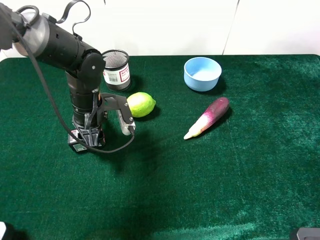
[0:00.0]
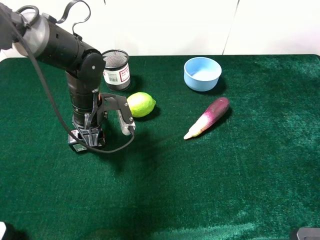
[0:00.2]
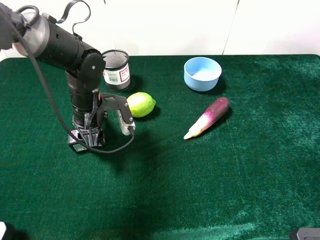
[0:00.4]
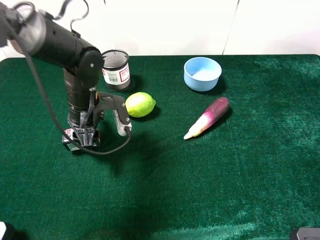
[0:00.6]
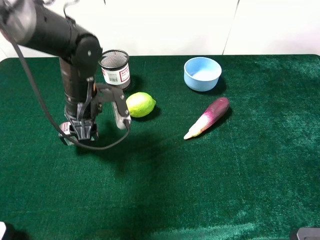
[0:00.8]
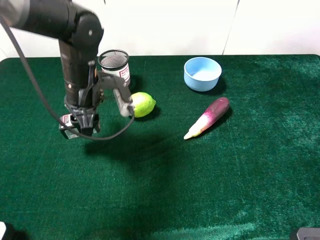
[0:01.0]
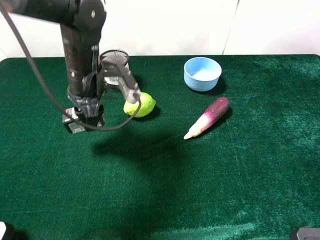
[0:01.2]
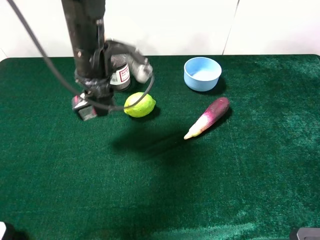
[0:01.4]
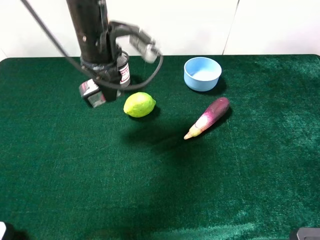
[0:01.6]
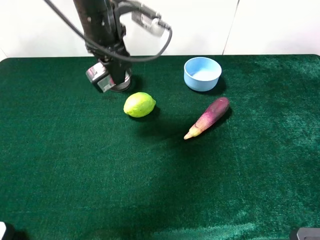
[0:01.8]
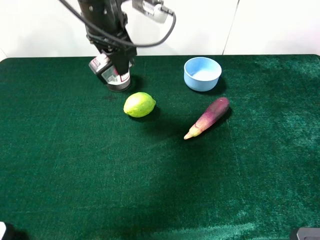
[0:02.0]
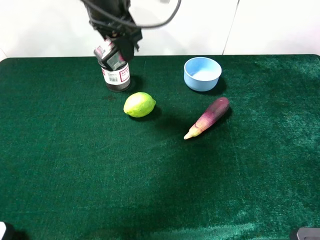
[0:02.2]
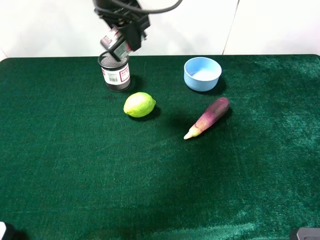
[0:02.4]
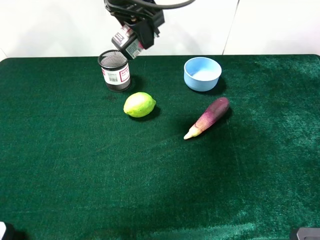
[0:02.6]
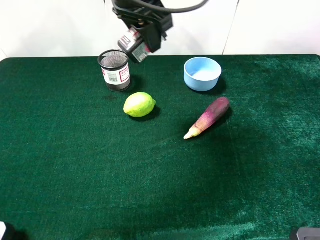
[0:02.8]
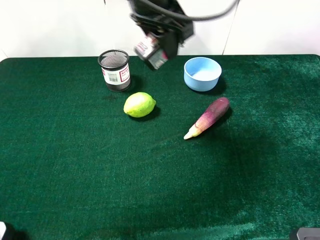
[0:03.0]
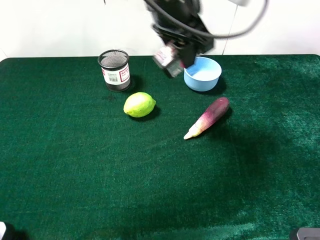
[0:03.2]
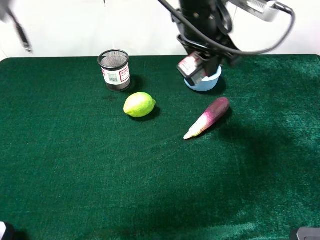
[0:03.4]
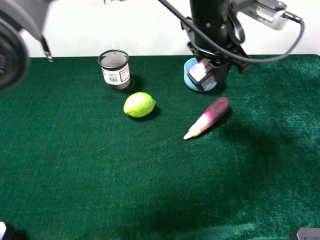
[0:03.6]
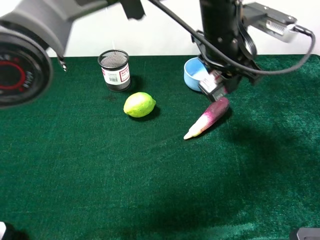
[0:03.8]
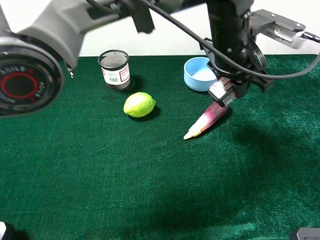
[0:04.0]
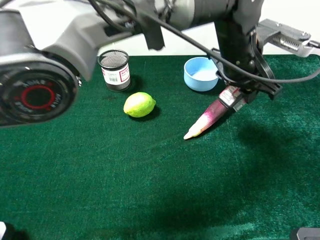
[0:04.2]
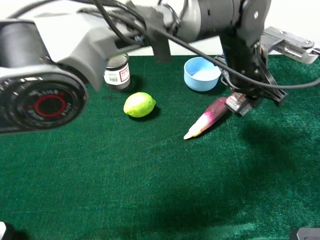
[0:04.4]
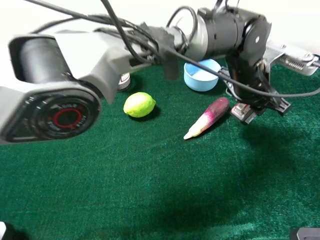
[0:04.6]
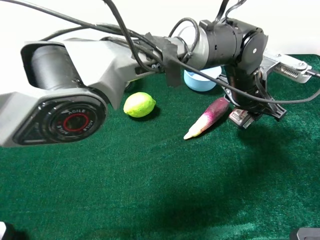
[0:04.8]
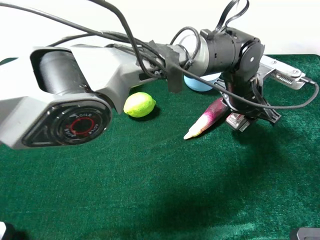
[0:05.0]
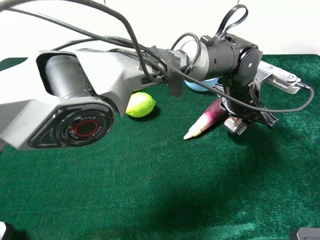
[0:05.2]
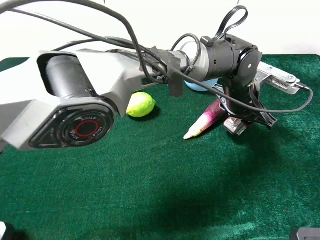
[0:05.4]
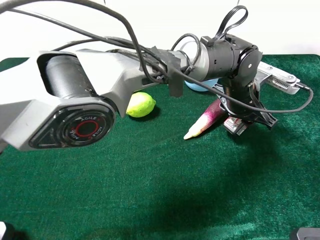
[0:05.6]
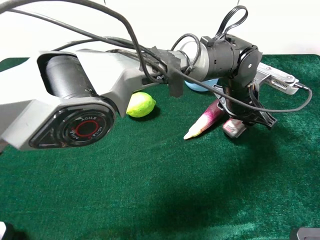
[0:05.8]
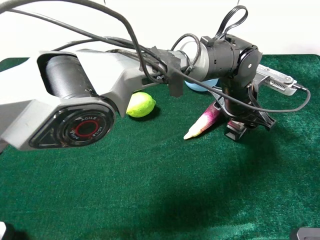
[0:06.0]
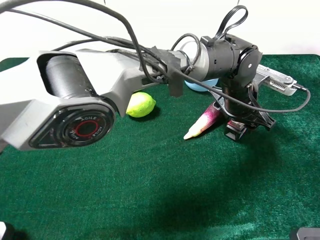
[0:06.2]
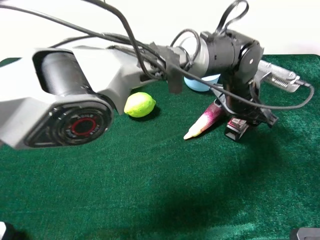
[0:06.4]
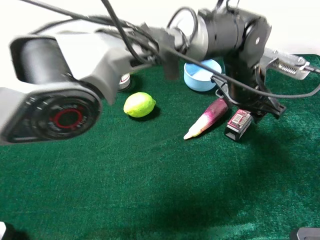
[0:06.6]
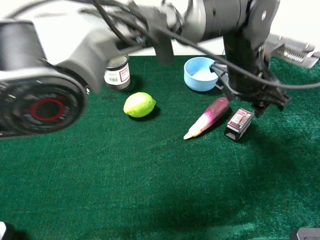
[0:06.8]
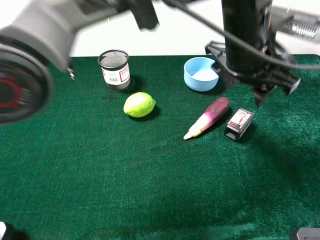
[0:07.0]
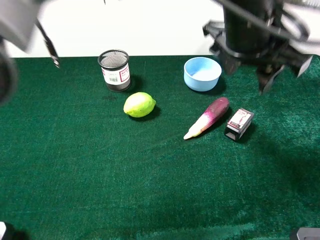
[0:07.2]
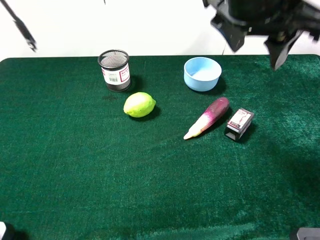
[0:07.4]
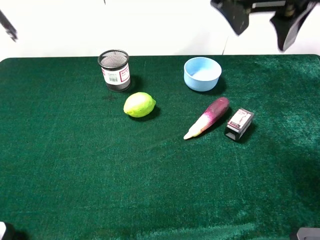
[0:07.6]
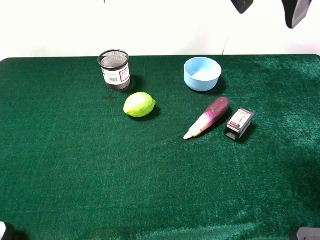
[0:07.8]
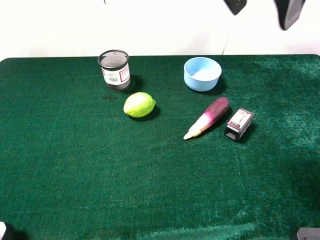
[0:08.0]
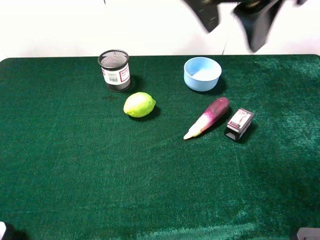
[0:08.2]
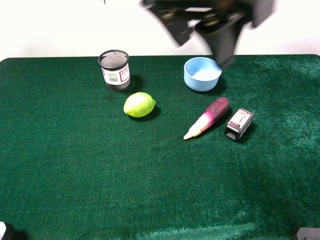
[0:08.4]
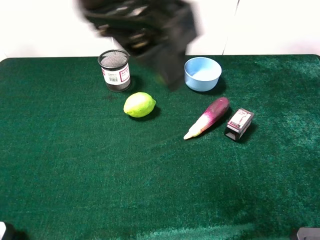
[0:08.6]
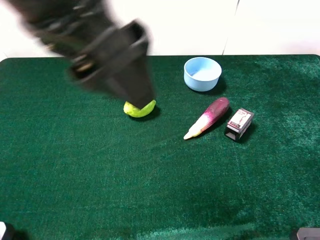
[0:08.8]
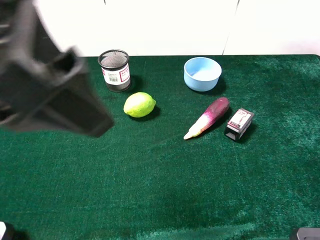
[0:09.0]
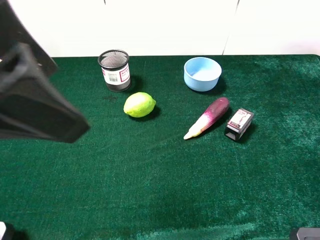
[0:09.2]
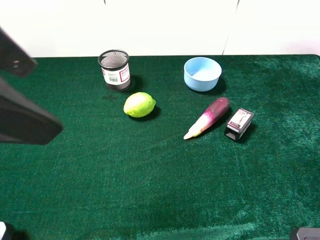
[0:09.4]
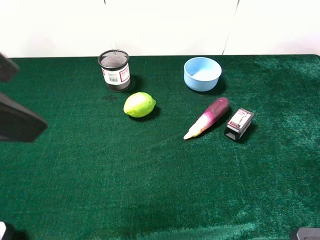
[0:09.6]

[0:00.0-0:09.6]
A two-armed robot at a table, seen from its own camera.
Task of the whole recording: the gripper move the object.
Step, 0:00.6 to 0:06.8: Place the square chewing gun on the table with the left gripper.
0:00.0 to 0:01.6: The left gripper moves upward, about 10 cm.
0:01.6 to 0:03.2: The left gripper moves to the right and upward, roughly 15 cm.
0:03.2 to 0:04.8: The left gripper heads to the right and downward, covering approximately 20 cm.
0:04.8 to 0:06.4: The left gripper opens.
0:06.4 to 0:08.0: The left gripper heads upward, covering roughly 30 cm.
0:08.0 to 0:09.6: The left gripper heads to the left and backward, covering about 25 cm, and opens up.

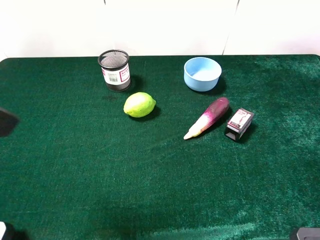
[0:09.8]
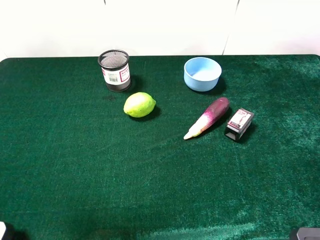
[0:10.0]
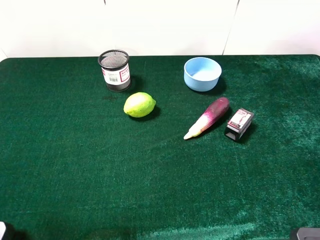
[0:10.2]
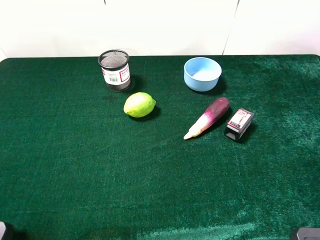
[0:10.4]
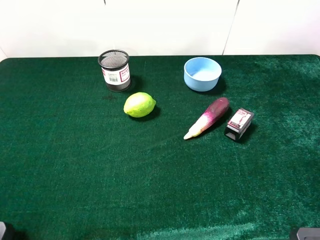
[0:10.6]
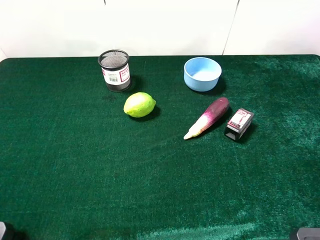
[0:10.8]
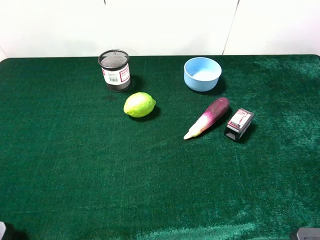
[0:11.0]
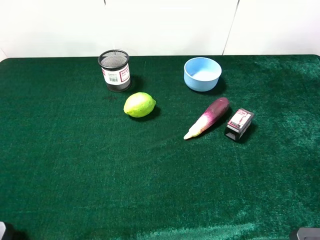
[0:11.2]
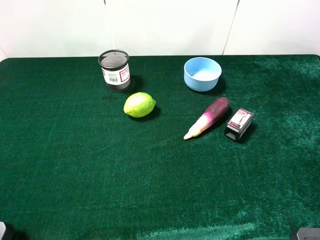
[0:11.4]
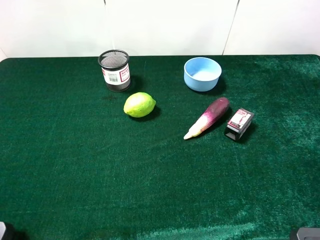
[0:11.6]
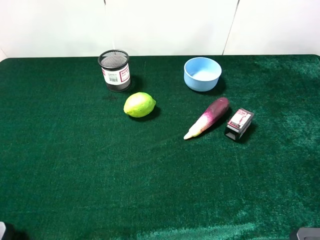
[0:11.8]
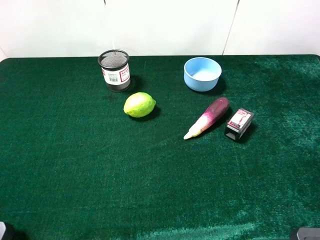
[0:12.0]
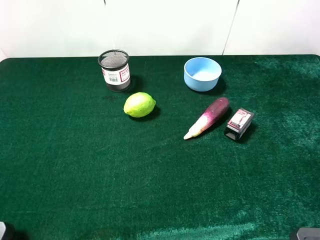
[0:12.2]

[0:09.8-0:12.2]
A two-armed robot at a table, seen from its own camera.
Task of the whole recording: the gripper move the object.
0:09.8 to 0:11.0: The left gripper goes about 15 cm to the left, backward and downward.
0:11.0 to 0:12.2: Neither gripper changes place.
